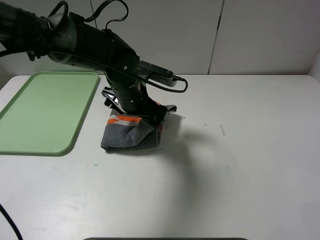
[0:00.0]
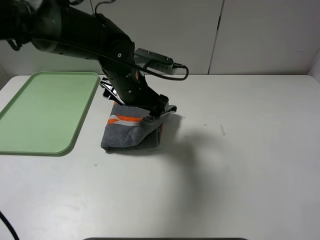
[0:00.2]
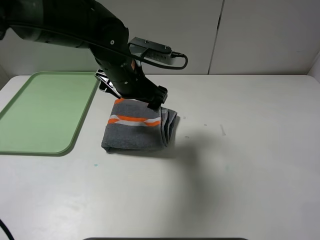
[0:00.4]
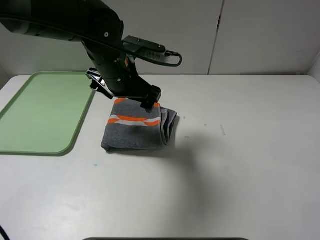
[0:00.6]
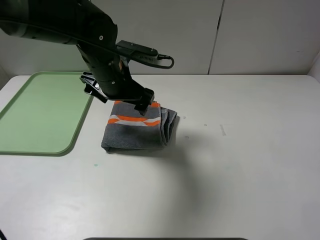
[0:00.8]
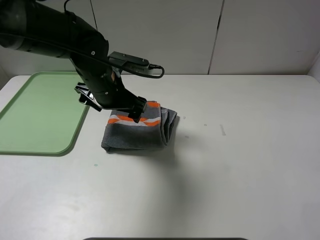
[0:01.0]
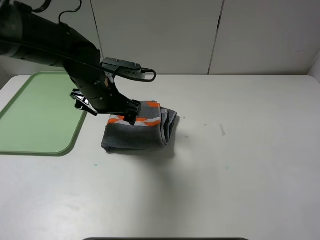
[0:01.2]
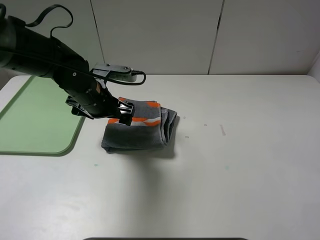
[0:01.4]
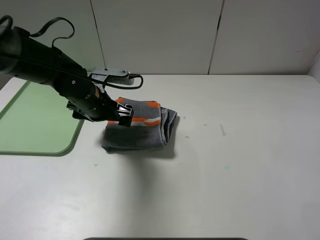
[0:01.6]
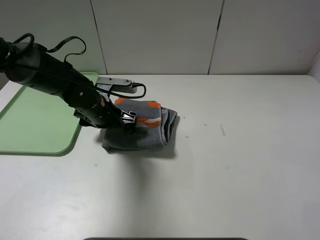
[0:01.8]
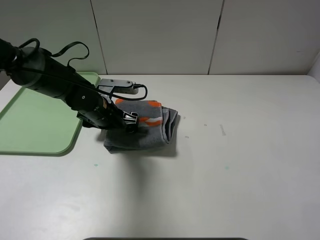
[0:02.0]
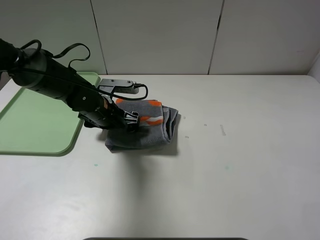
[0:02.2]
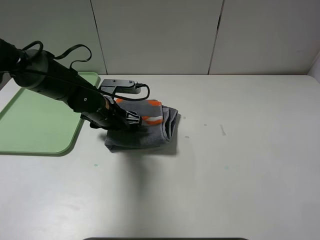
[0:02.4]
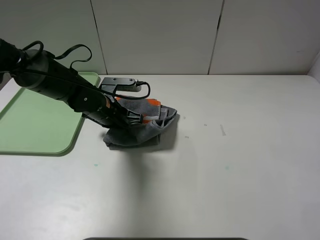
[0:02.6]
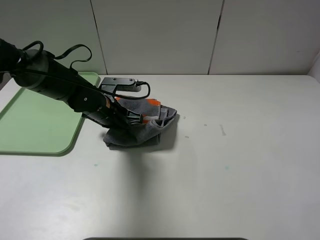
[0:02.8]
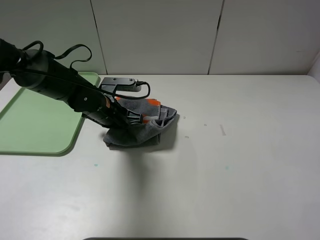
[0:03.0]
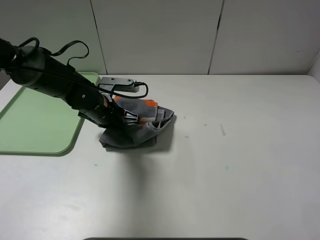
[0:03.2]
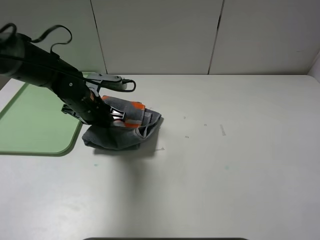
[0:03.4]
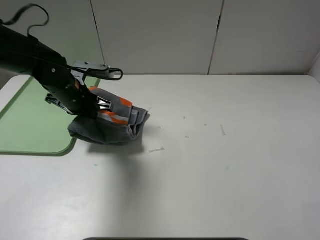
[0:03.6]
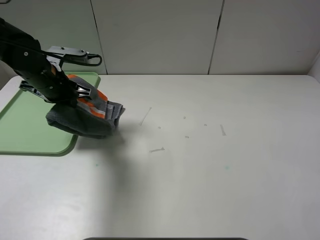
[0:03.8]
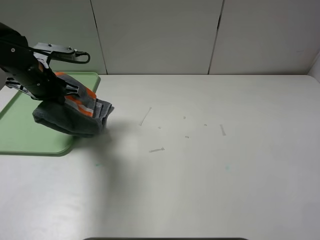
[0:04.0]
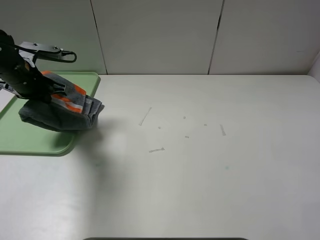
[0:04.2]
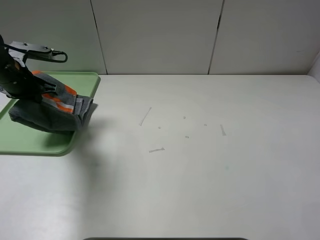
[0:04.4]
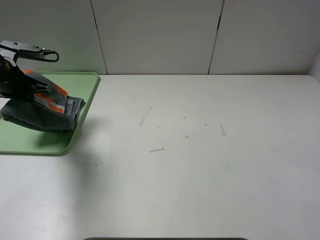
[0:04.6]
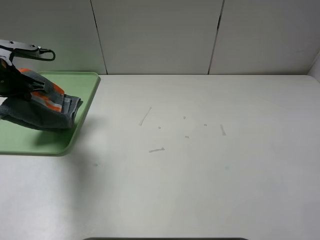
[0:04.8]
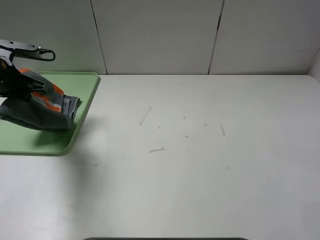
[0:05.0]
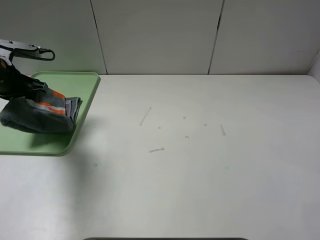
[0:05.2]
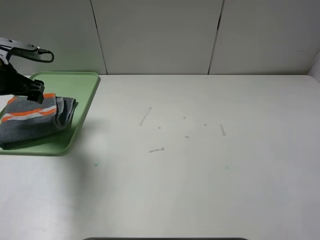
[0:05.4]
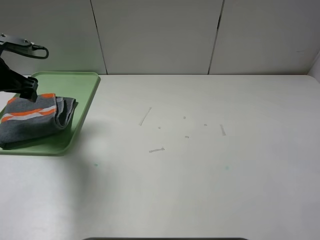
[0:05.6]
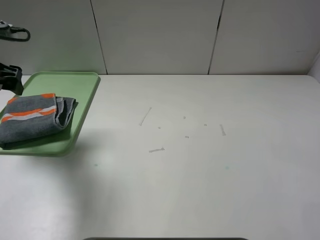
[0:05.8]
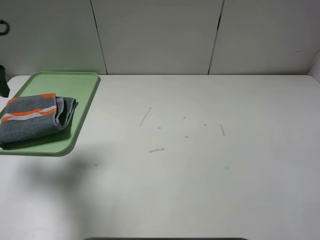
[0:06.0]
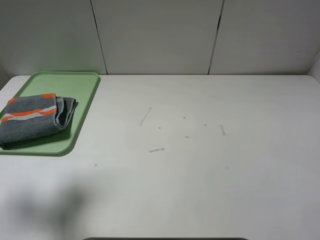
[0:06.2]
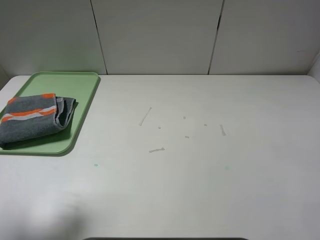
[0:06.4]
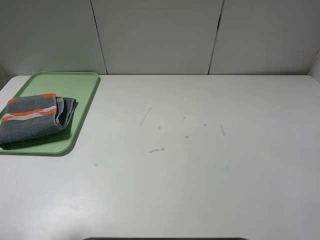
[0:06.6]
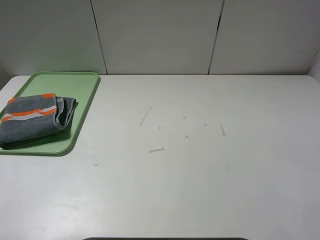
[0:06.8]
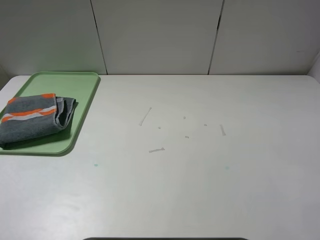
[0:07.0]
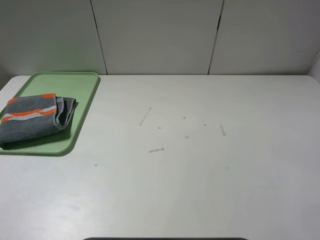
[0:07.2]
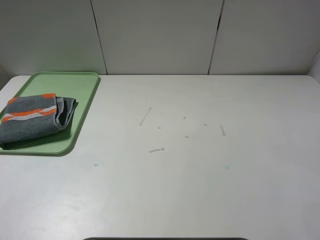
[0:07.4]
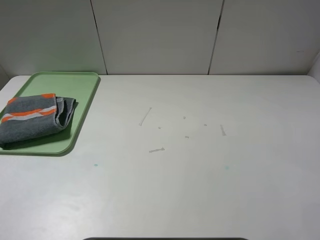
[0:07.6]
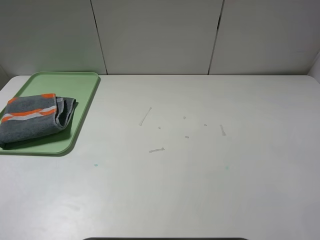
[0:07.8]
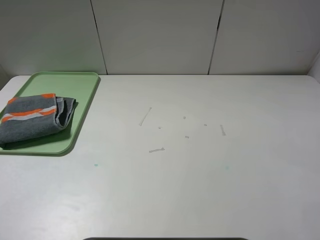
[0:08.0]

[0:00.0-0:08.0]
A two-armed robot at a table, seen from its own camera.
Step, 0:00.2 to 0:05.2: Place the folded grey towel on the tray with the left gripper.
0:00.0 to 0:01.6: The left gripper goes some 10 cm to the left.
0:01.6 to 0:03.2: The left gripper closes its fingers.
0:03.2 to 0:04.8: The left gripper travels to the left and upward by approximately 20 cm.
0:04.8 to 0:06.4: The left gripper travels backward and upward by approximately 25 cm, and opens.
0:06.4 to 0:08.0: The left gripper is displaced backward by roughly 15 cm.
